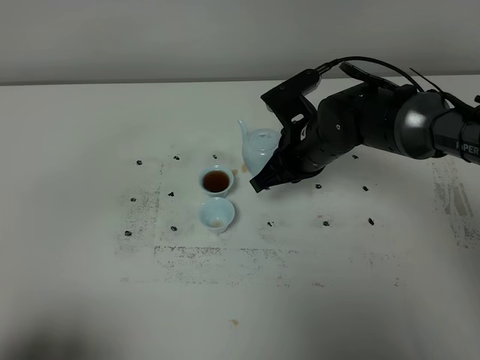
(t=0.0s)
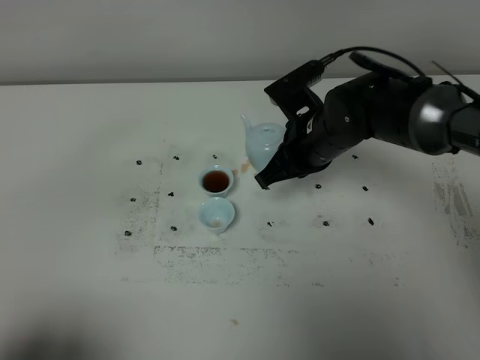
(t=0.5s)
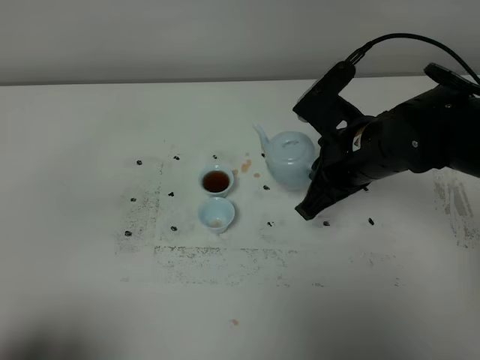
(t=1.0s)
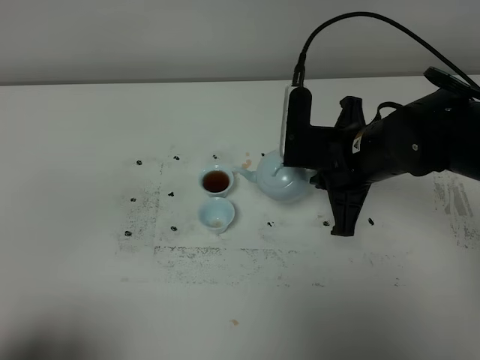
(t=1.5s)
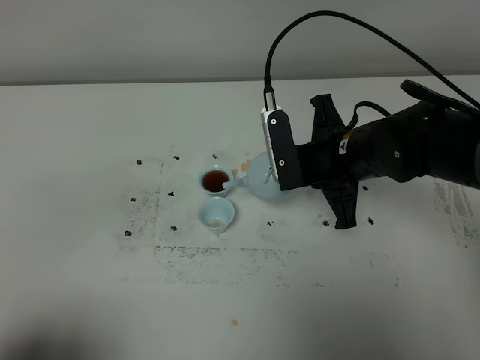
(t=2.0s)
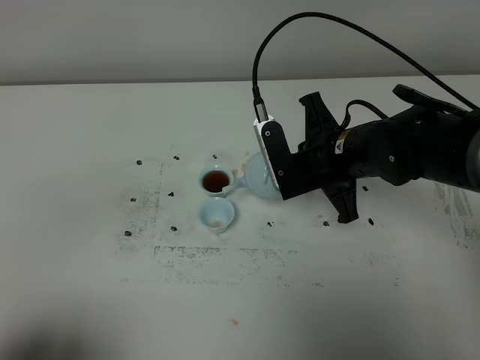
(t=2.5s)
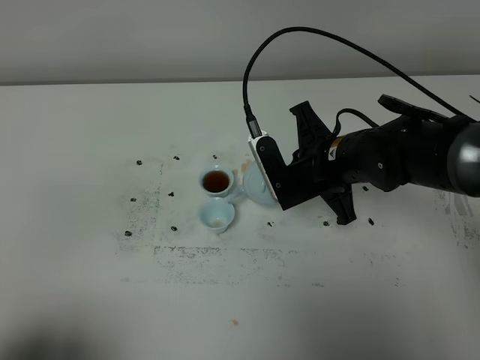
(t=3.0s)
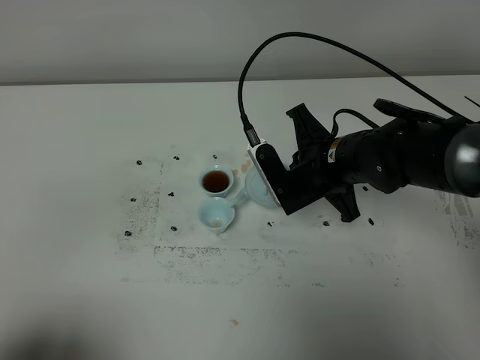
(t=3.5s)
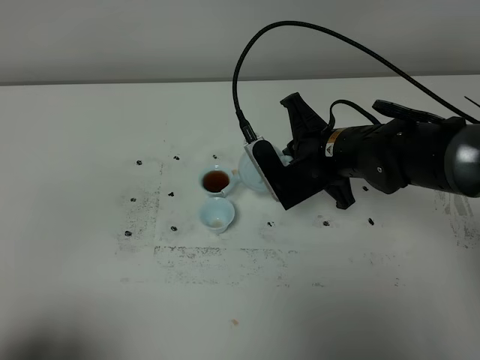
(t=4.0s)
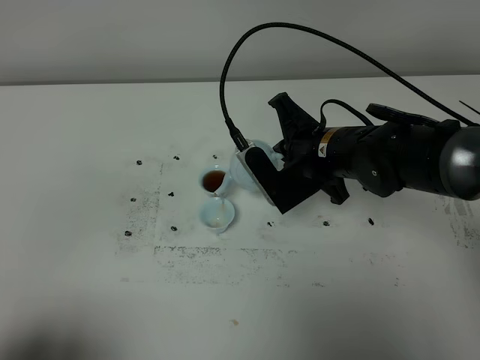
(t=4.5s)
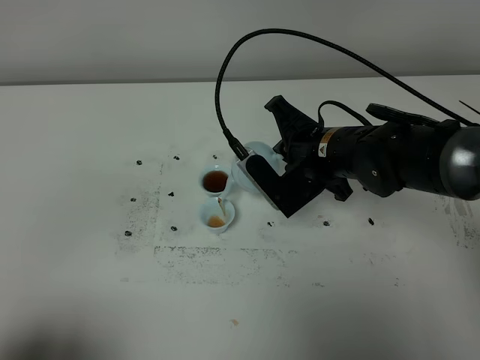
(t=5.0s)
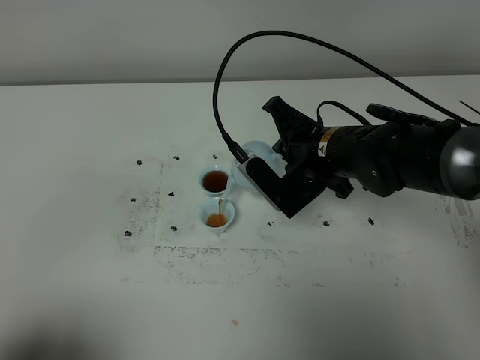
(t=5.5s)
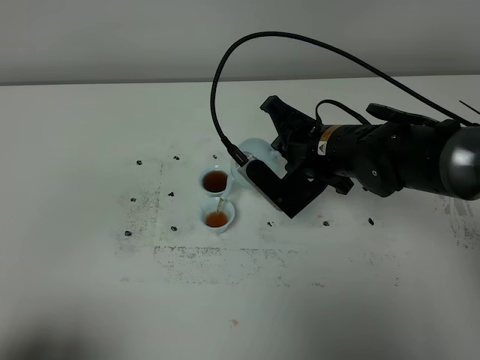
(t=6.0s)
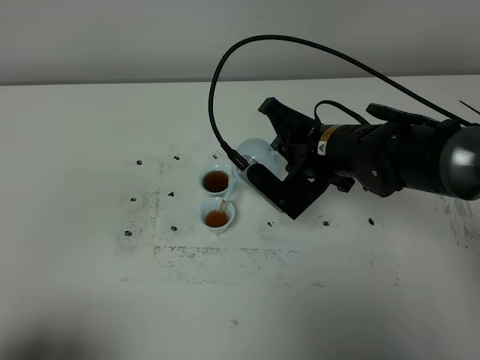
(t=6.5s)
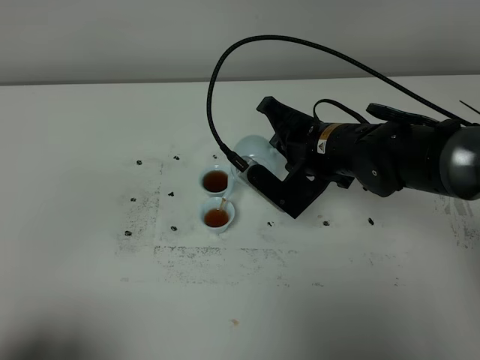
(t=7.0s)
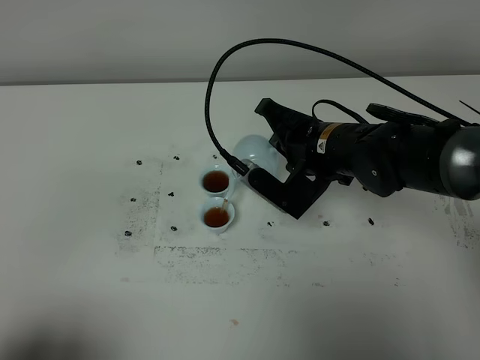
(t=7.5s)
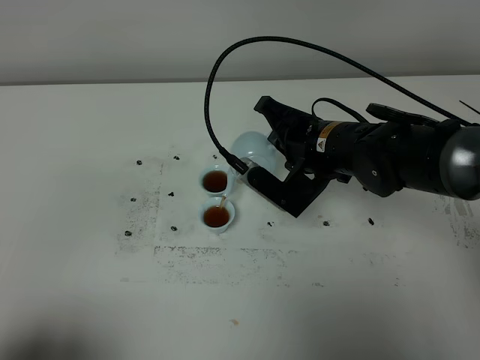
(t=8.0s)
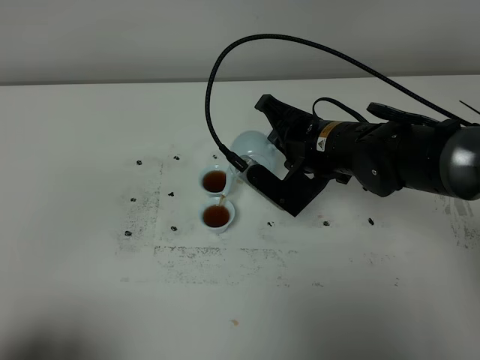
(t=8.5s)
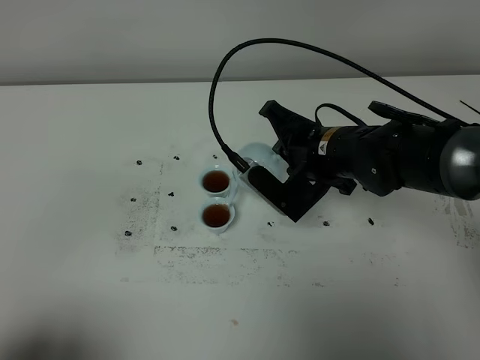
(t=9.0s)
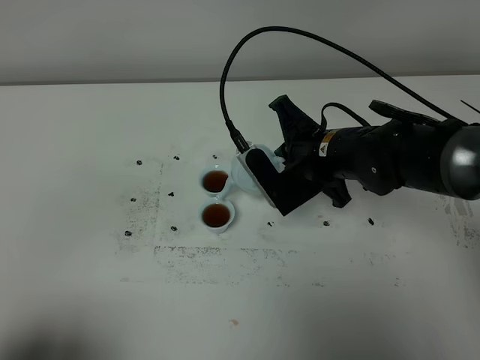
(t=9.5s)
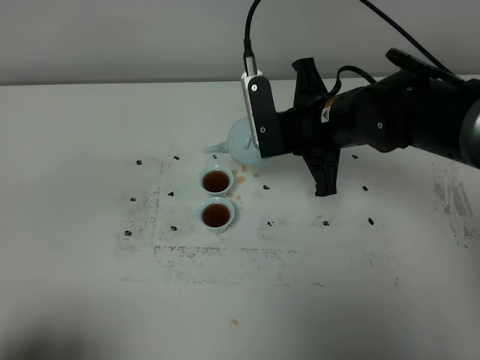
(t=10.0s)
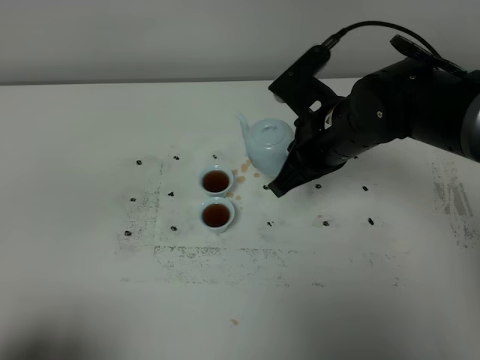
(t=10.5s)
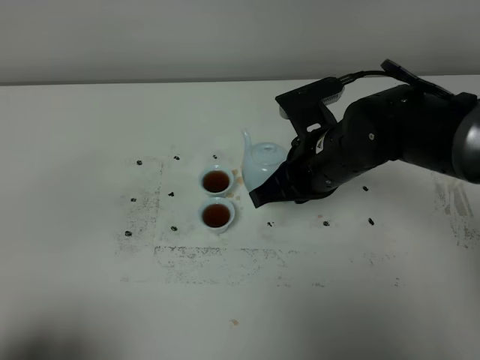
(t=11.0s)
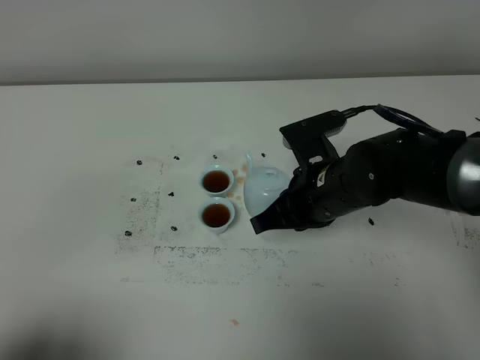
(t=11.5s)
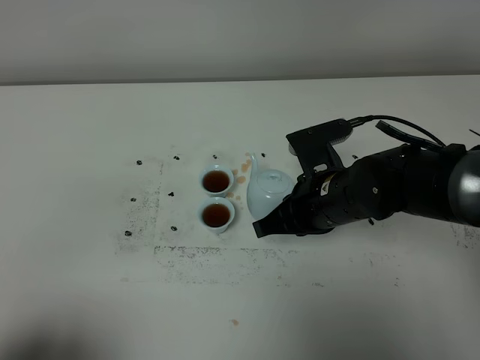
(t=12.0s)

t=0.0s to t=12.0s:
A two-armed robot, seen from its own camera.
Task of the whole recording: grasp the blue porcelain teapot and pour the tea into the two blue porcelain teacups one by one, put the blue porcelain teapot back in its original place.
Step, t=0.0s to t=9.5s: Pour tea into the teacup with the right gripper.
t=0.0s to t=2.0s: The right gripper moves backward, approximately 5 cm.
t=4.0s to t=6.0s: The grippers stay close to where they were, moving slightly.
t=6.0s to t=8.0s: The grippers stay close to where they were, moving slightly.
t=10.0s to t=12.0s: The right gripper heads downward and backward, covering some 10 cm.

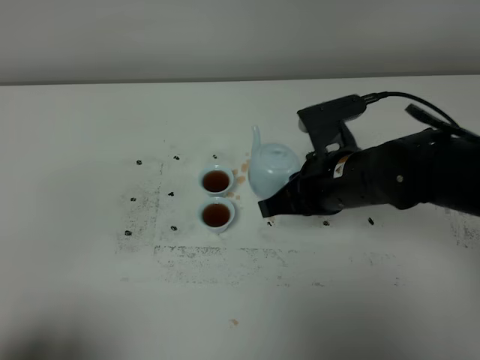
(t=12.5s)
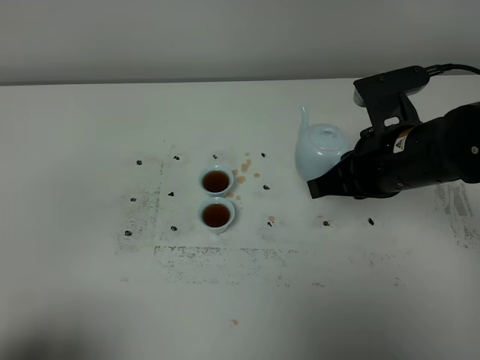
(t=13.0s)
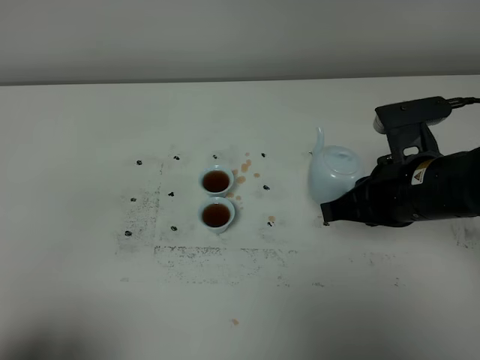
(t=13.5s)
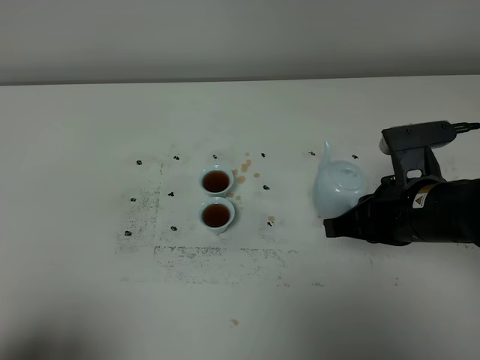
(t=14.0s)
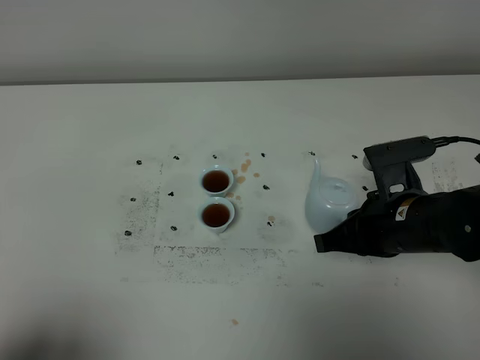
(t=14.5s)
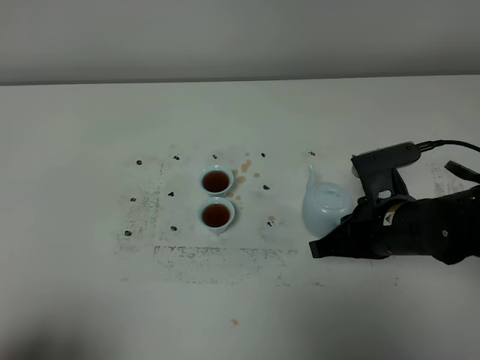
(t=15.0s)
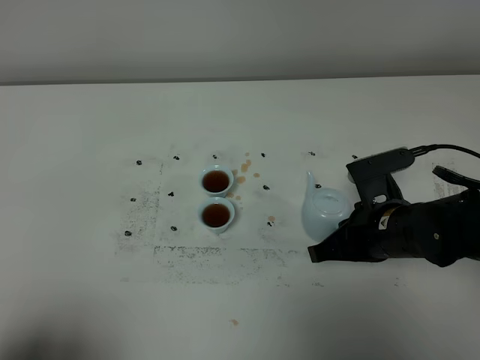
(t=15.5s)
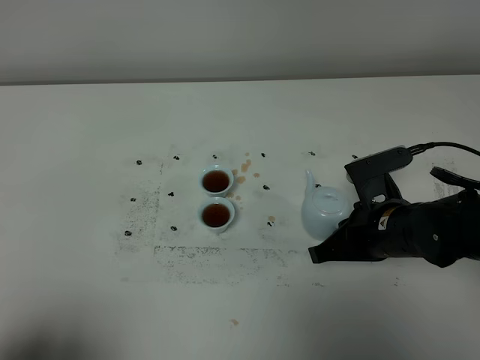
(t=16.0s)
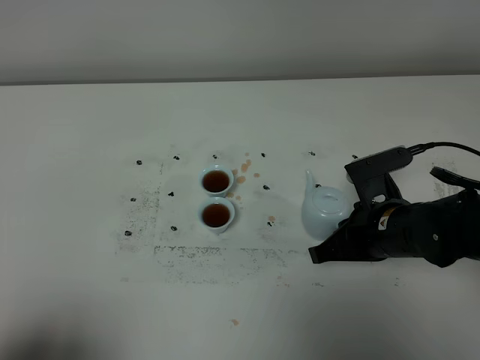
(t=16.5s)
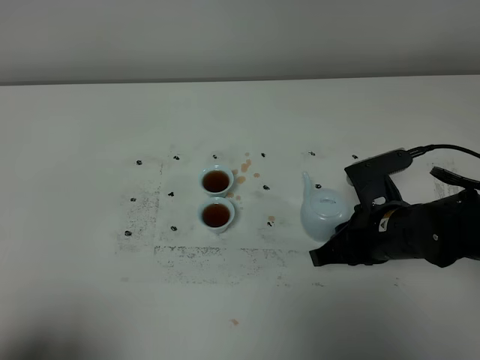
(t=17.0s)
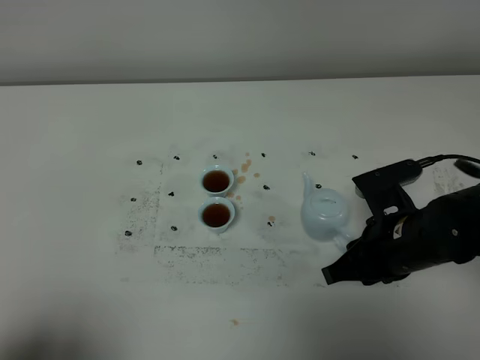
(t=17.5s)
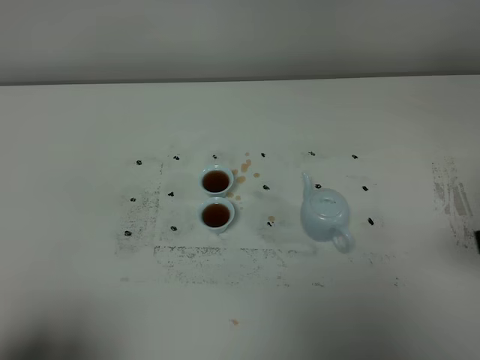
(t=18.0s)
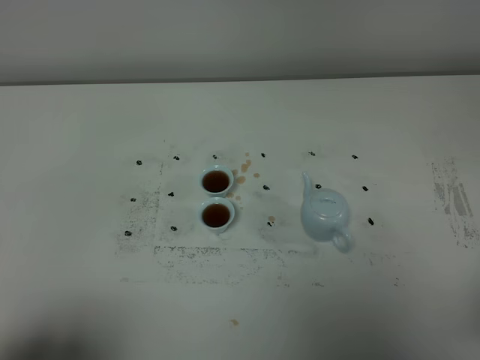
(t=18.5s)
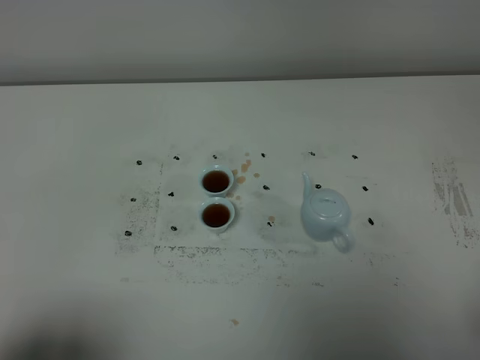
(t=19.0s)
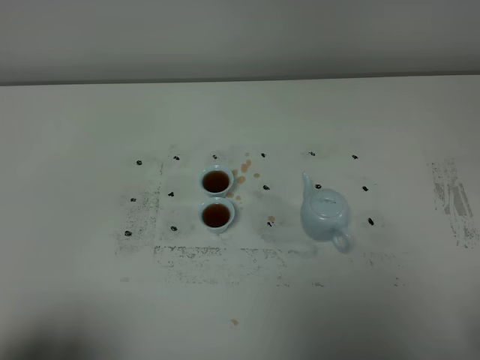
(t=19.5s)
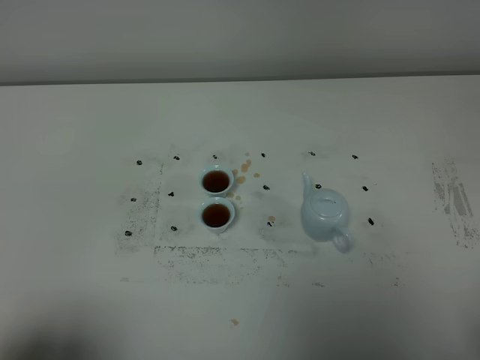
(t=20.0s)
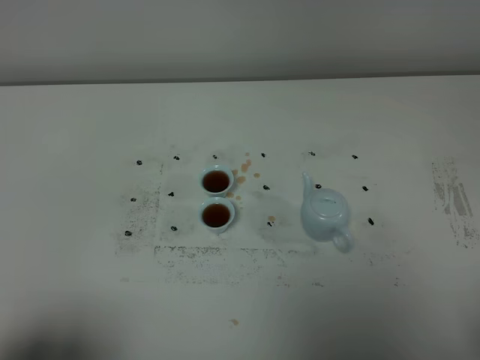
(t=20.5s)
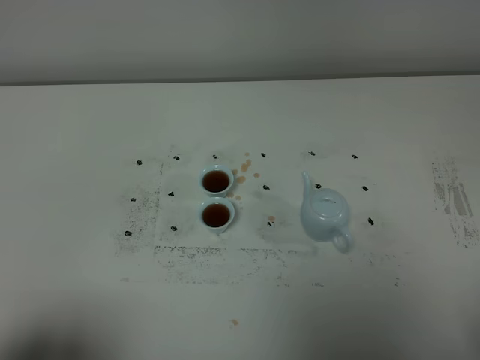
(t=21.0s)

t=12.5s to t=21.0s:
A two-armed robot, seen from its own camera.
Task of the whole recording: grasp the blue porcelain teapot and pour the tea into the two blue porcelain teacups one by one, put the blue porcelain teapot back in its original place.
t=12.5s to t=14.5s: The right gripper is displaced to the right by about 5 cm.
t=14.5s to t=16.5s: The grippers move only a little.
t=16.5s to t=19.0s: The right gripper shifts roughly 30 cm backward, upward and to the right, and opens.
